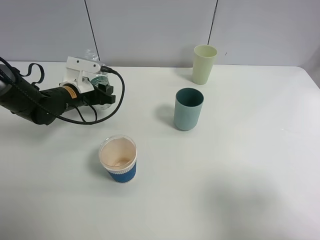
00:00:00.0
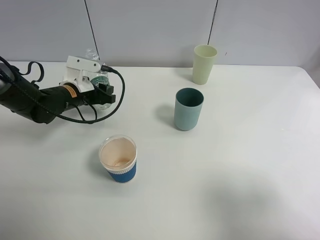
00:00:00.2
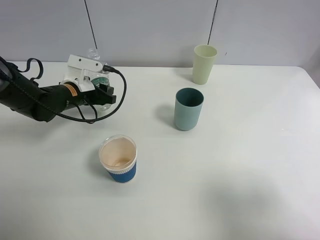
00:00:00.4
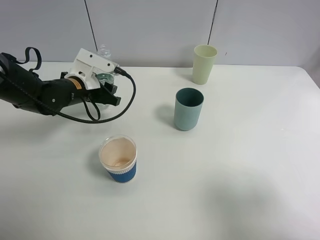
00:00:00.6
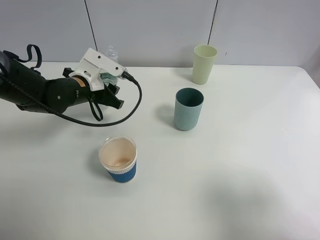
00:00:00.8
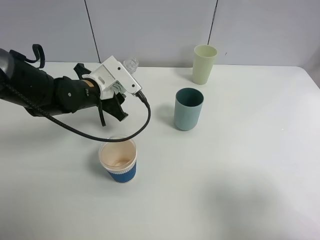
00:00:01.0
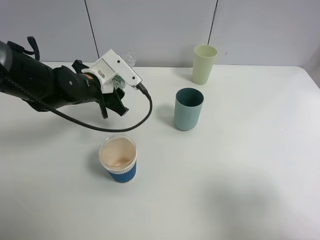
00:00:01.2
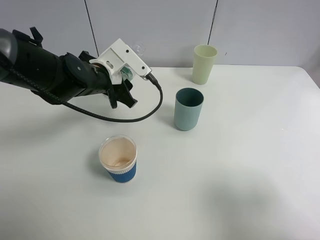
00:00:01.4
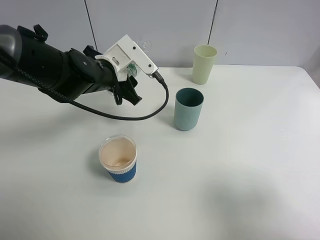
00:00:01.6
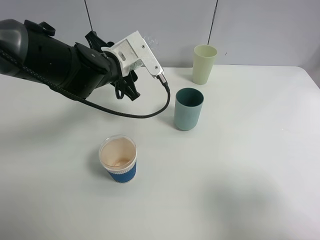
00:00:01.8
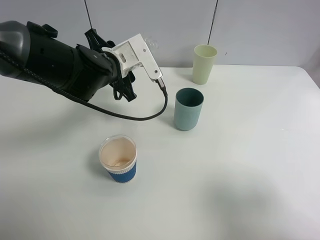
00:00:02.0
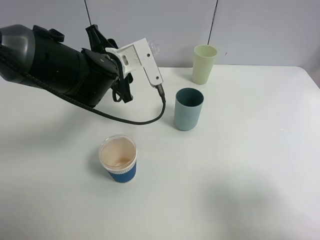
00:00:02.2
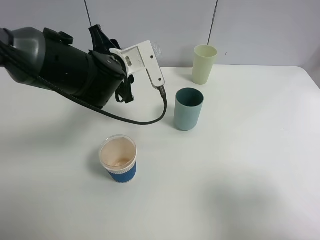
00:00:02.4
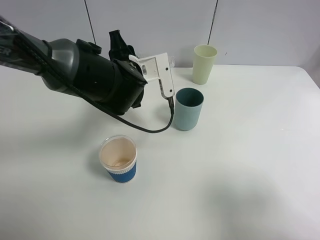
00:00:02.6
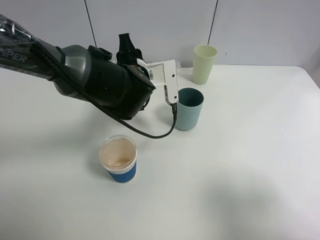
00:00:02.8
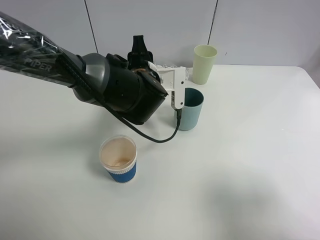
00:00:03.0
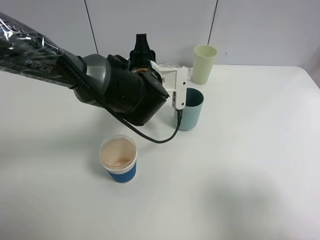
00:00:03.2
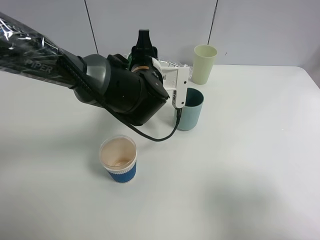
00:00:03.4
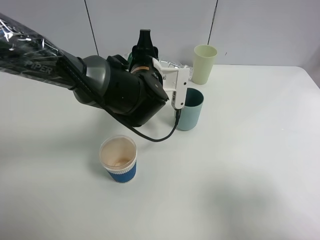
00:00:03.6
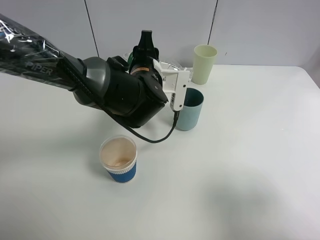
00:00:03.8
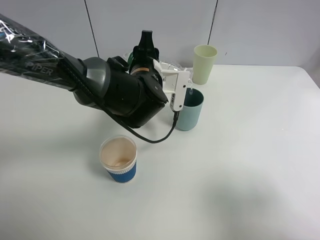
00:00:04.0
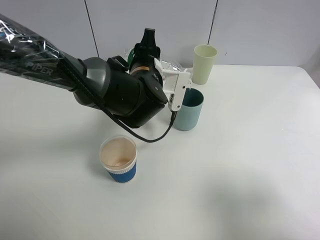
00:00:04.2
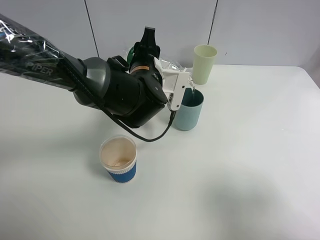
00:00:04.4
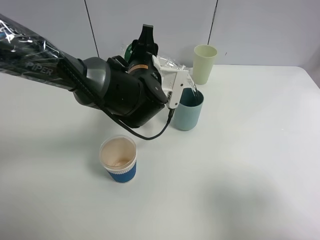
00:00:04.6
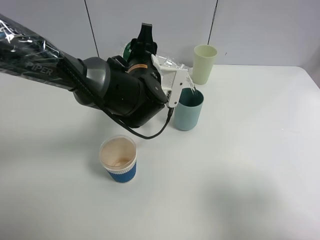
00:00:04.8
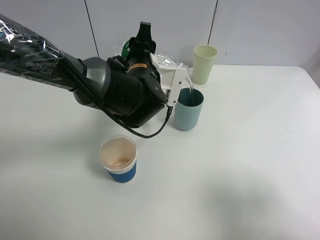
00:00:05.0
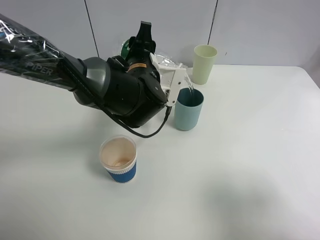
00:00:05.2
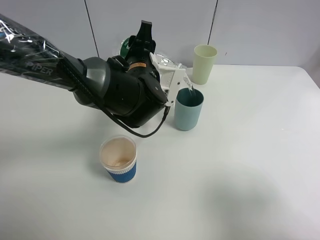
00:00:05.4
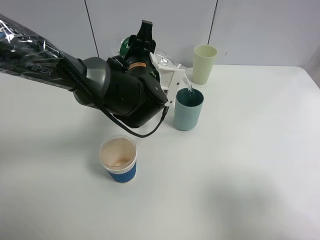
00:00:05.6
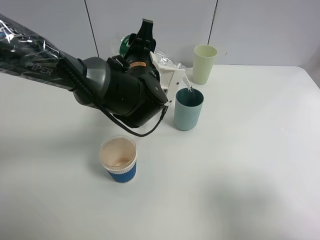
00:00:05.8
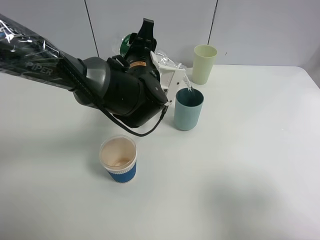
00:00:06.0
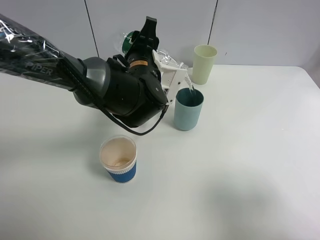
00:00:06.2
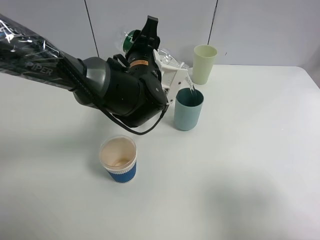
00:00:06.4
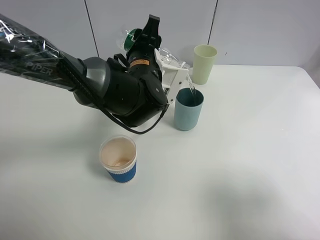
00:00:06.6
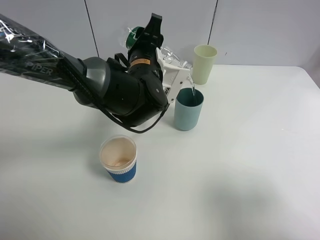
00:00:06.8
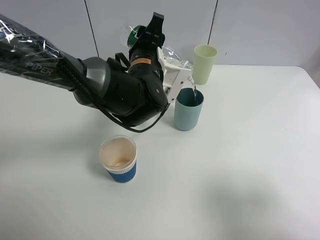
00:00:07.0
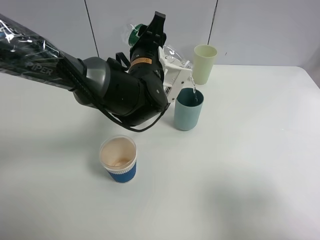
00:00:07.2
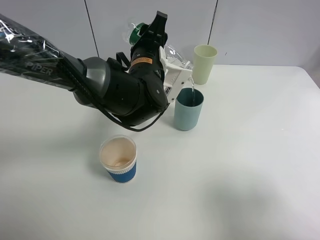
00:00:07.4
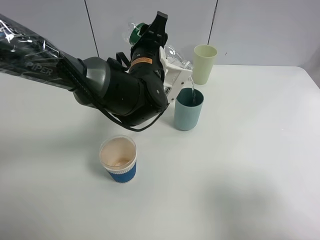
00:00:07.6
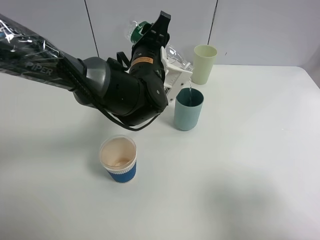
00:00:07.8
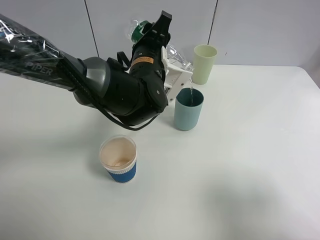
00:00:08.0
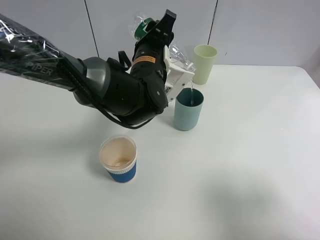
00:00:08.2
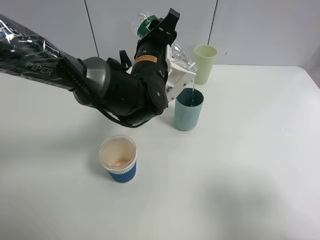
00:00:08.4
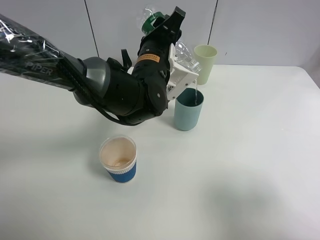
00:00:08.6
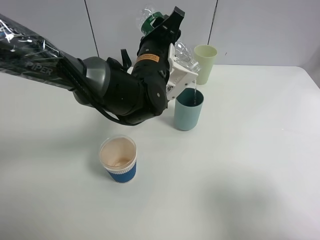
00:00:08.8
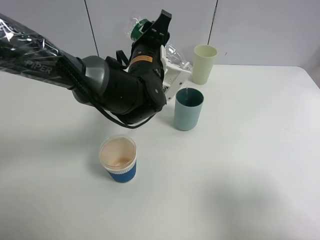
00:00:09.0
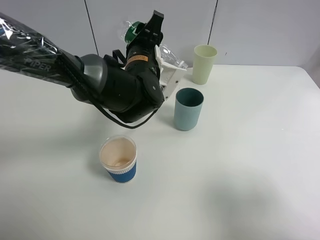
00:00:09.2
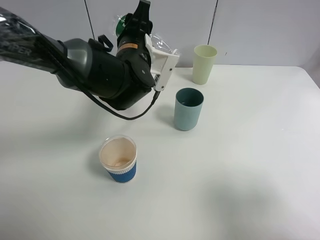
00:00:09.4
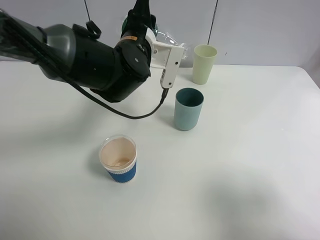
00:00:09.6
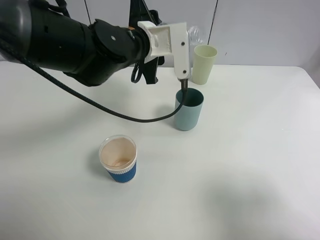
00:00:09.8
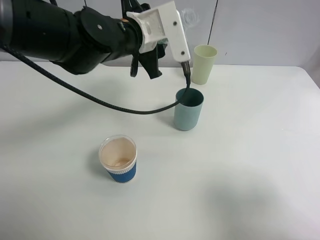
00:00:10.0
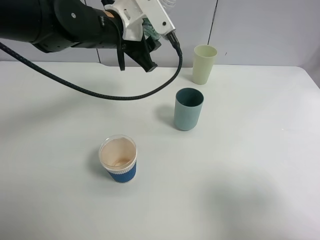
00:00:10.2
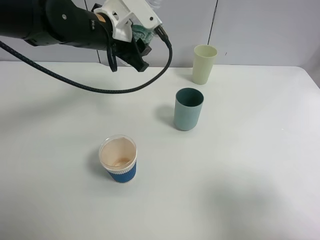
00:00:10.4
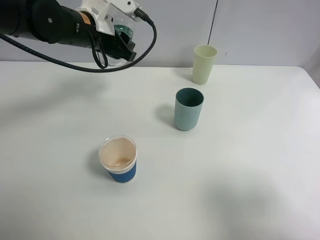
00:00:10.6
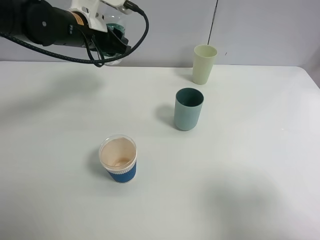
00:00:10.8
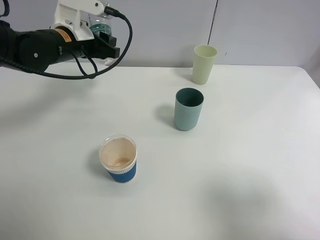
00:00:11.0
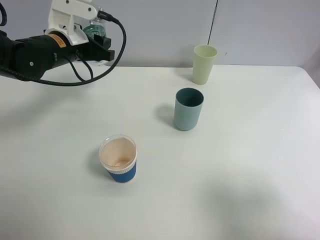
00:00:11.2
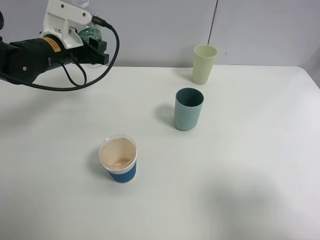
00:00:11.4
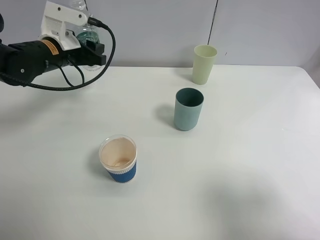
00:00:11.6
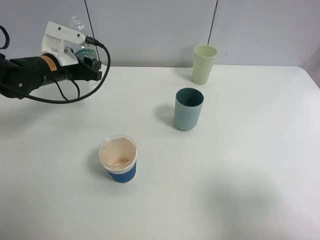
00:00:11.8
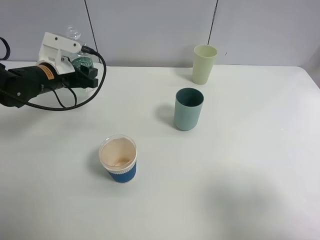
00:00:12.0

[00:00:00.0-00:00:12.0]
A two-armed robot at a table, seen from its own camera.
Task of the whole recording: use a clamp to hold the bottle of the drink, pour the beverage into a random cup, then clamp the cup containing the drink and pour the drink into another random cup.
Step, 00:00:01.4 to 00:00:09.8: Pour the water into the blue plastic cup with left gripper.
00:00:00.0 to 00:00:01.6: The left gripper shifts about 15 cm to the right and upward.
00:00:01.6 to 00:00:03.0: The left gripper travels to the right by roughly 10 cm.
00:00:03.0 to 00:00:04.4: There are only small adjustments of the grippers.
00:00:04.4 to 00:00:07.6: The grippers make only small movements.
00:00:07.6 to 00:00:09.0: The grippers make only small movements.
00:00:09.0 to 00:00:10.4: The left gripper moves to the left and upward, some 10 cm.
00:00:10.4 to 00:00:12.0: The left gripper goes about 15 cm to the left and downward.

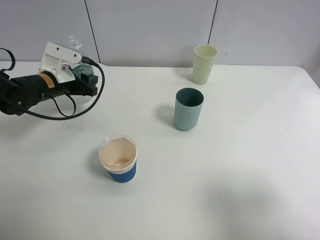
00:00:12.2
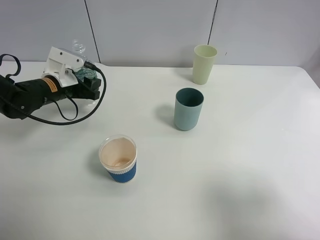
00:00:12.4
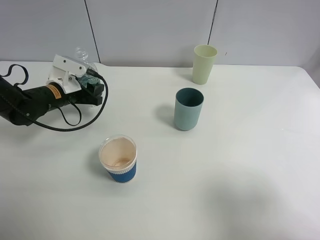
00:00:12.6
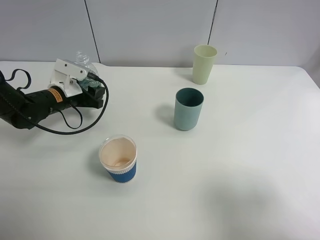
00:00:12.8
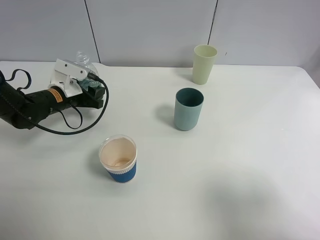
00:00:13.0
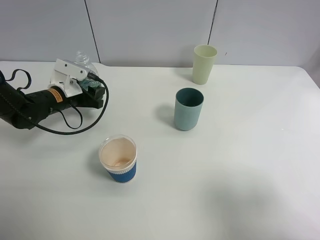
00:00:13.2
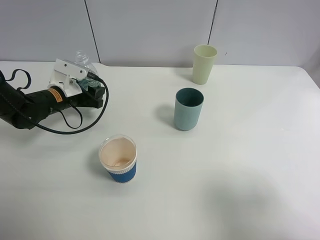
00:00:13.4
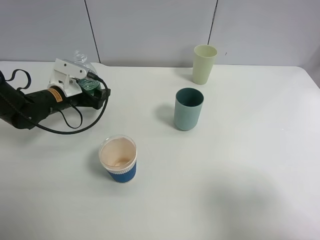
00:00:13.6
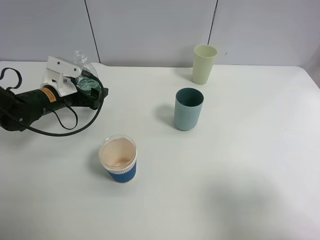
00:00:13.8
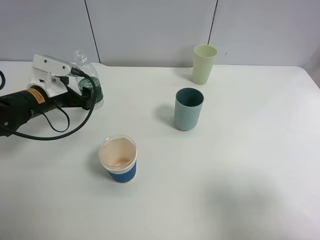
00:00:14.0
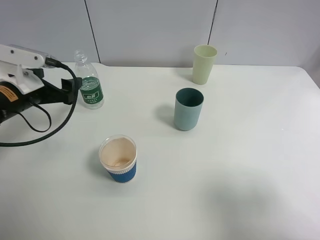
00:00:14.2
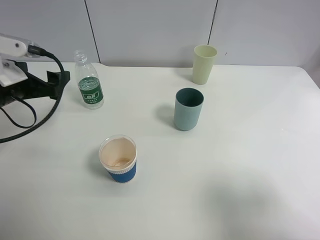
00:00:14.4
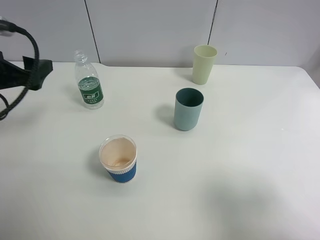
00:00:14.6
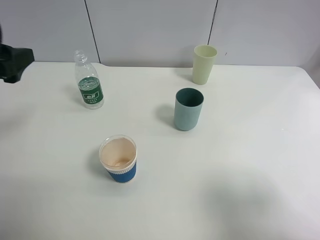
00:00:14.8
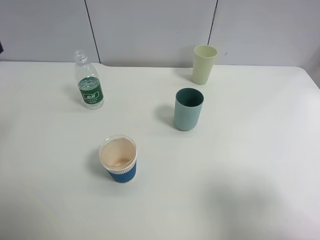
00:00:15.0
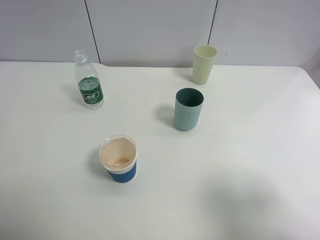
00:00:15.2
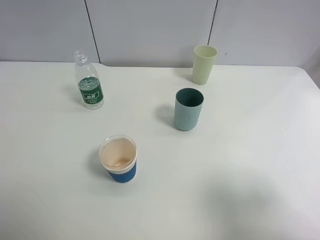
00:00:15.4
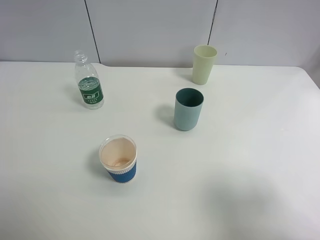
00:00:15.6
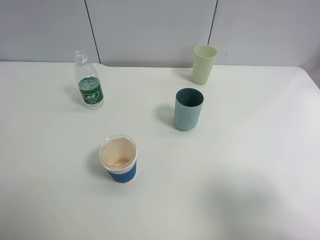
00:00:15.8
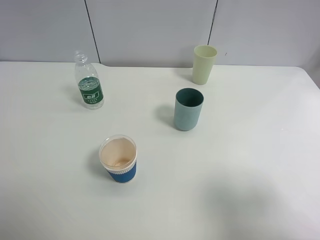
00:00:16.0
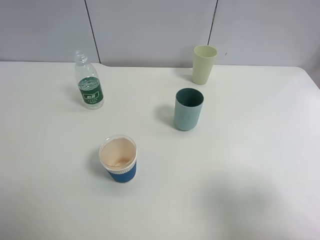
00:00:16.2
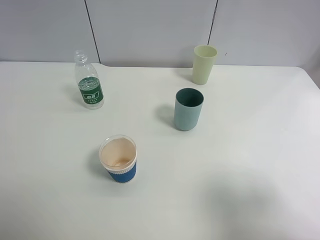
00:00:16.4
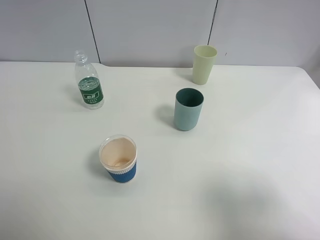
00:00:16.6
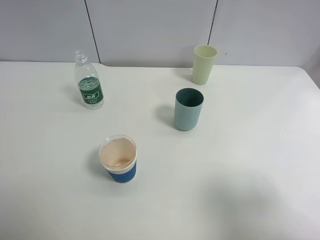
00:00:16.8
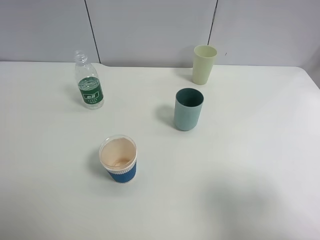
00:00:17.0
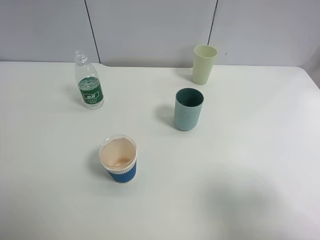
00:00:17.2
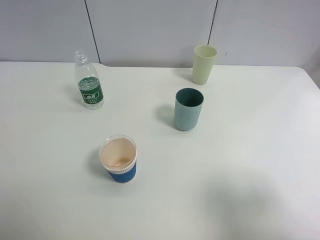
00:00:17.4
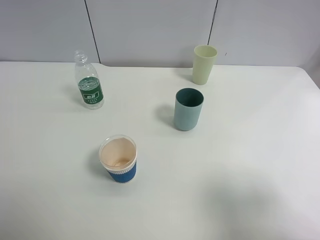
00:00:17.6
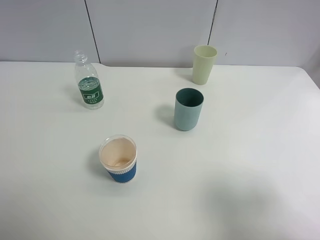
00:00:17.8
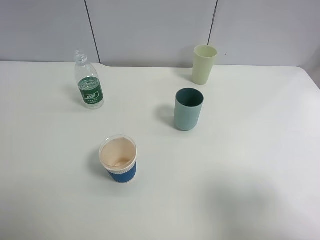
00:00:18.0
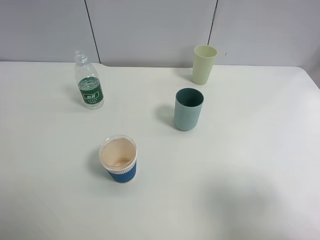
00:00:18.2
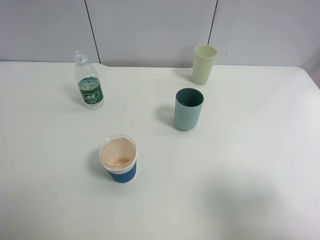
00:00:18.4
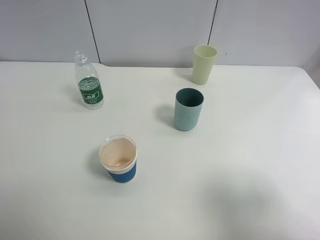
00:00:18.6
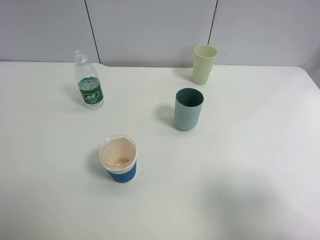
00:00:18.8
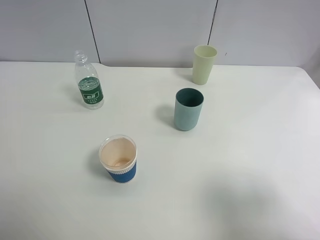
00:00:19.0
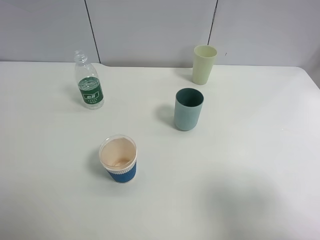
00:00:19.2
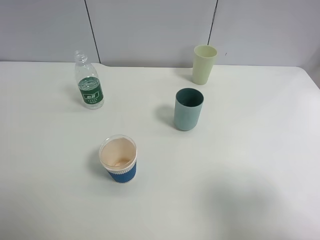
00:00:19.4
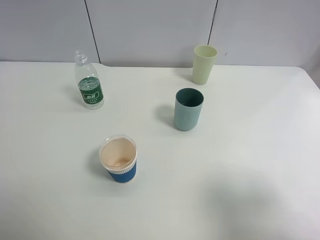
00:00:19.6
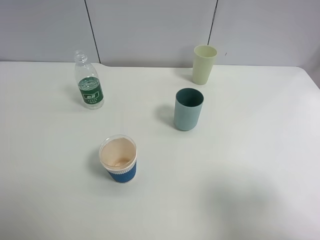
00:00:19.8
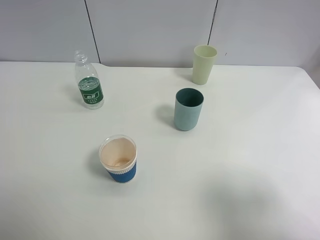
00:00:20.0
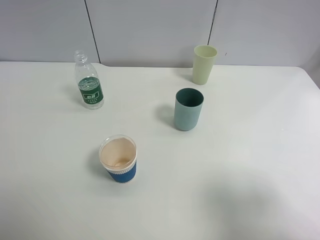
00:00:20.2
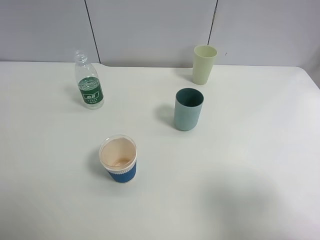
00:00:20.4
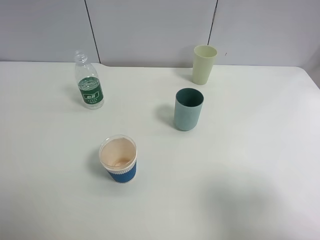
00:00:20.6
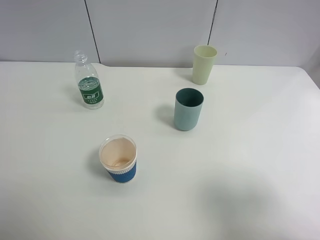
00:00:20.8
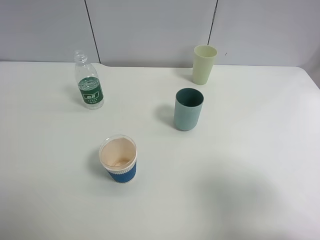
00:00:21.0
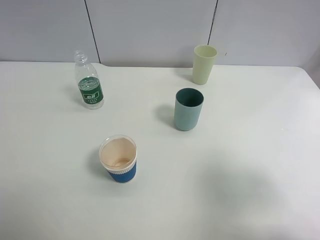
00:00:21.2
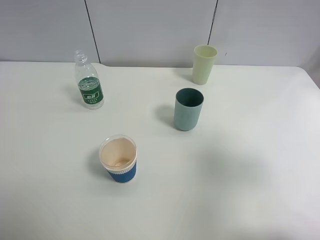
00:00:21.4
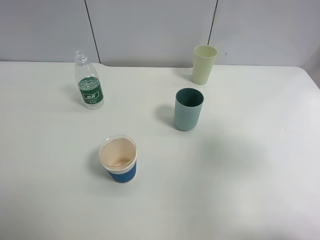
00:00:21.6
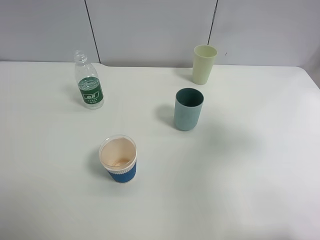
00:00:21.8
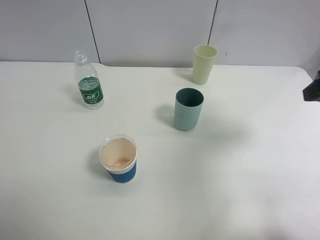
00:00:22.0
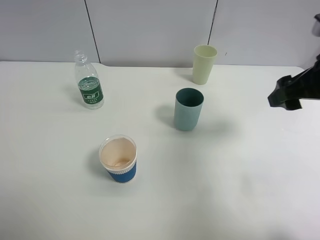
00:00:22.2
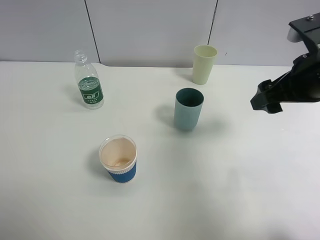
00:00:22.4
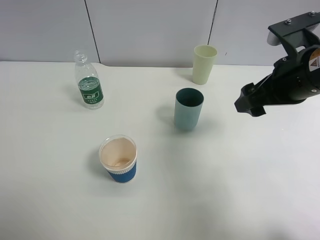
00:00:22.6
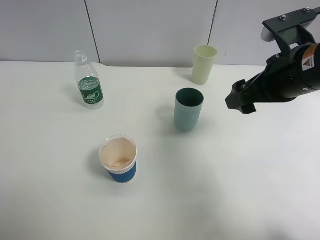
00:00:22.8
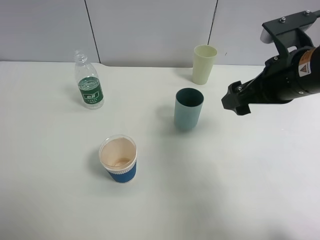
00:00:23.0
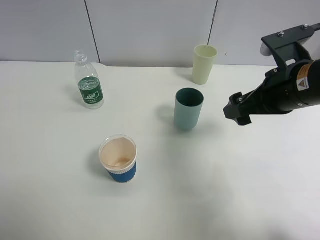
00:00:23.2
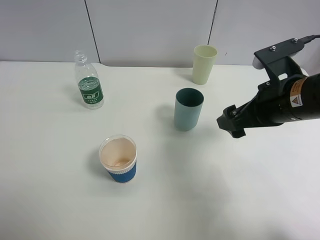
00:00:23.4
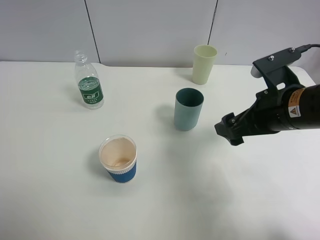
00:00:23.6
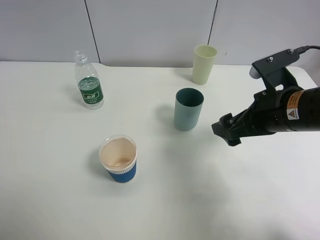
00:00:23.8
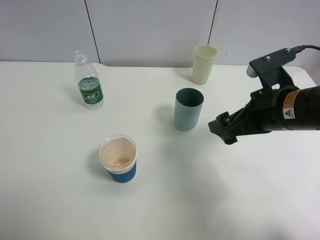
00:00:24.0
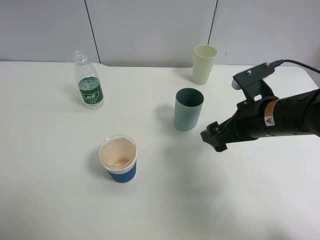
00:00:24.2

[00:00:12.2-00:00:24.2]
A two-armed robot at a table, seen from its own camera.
Task of the whole recording: use a clamp to hold the bottle of the drink, pour the beverage into a random cup, then clamp the cup containing the drink and pour the drink into another random cup.
00:00:12.2 to 00:00:13.8: The left gripper opens up.
00:00:13.8 to 00:00:15.2: The left gripper travels backward and upward by roughly 30 cm.
00:00:18.2 to 00:00:19.8: Both grippers stay put.
00:00:21.2 to 00:00:22.6: The right gripper moves forward and to the left, about 20 cm.
00:00:22.6 to 00:00:24.2: The right gripper travels downward by approximately 10 cm, and opens up.
